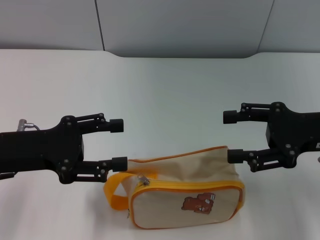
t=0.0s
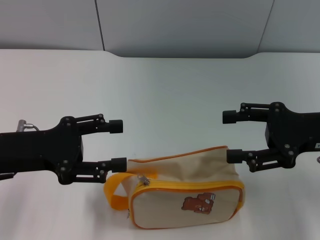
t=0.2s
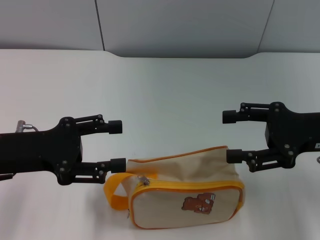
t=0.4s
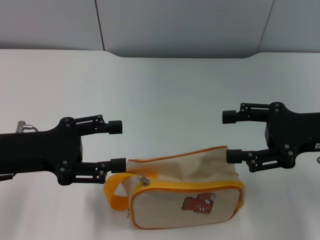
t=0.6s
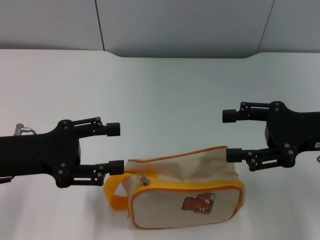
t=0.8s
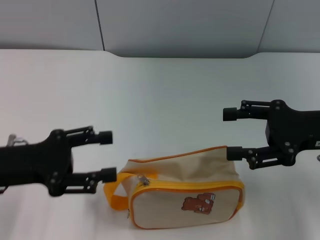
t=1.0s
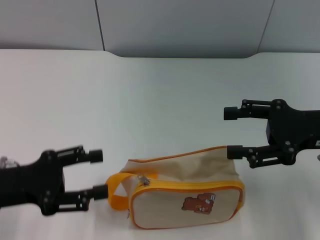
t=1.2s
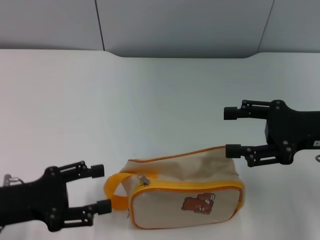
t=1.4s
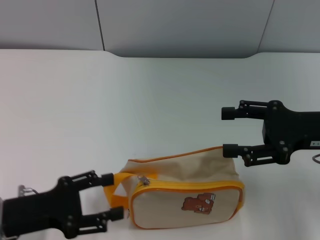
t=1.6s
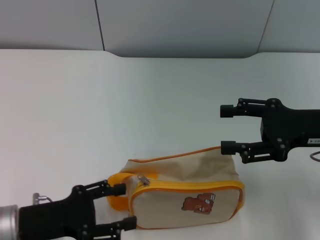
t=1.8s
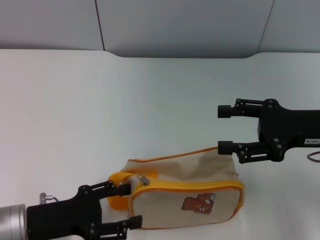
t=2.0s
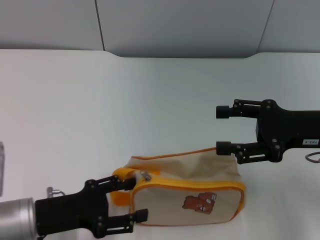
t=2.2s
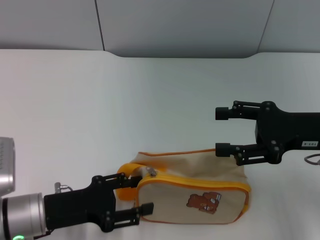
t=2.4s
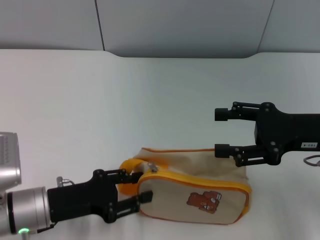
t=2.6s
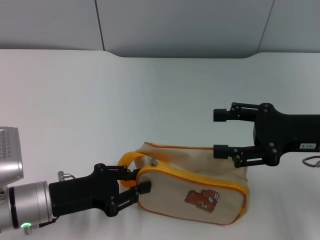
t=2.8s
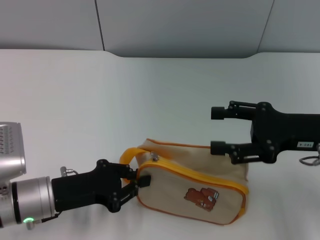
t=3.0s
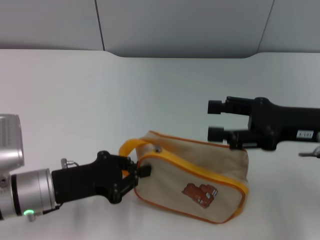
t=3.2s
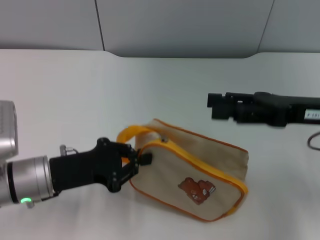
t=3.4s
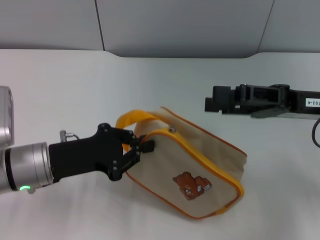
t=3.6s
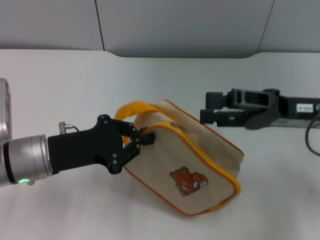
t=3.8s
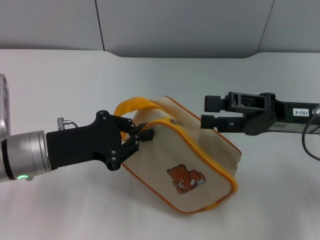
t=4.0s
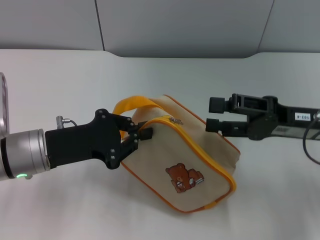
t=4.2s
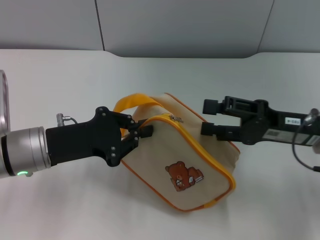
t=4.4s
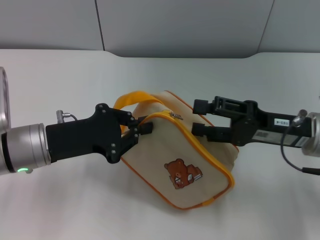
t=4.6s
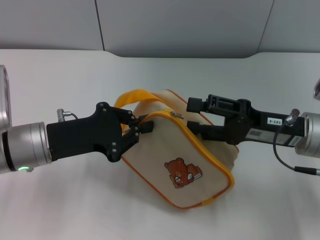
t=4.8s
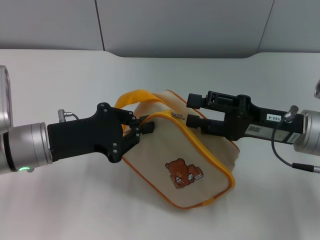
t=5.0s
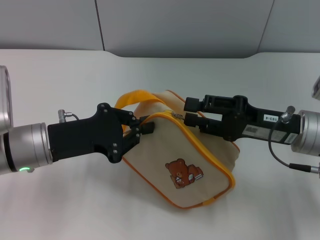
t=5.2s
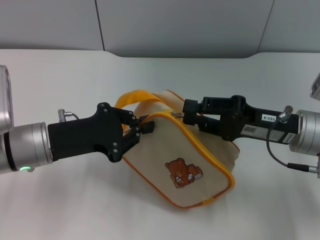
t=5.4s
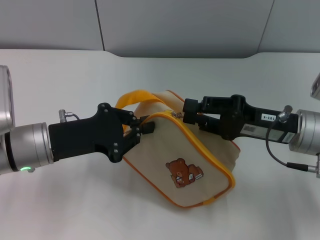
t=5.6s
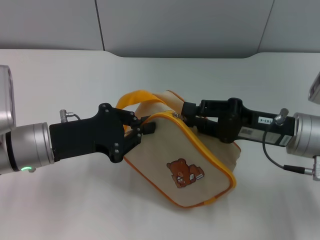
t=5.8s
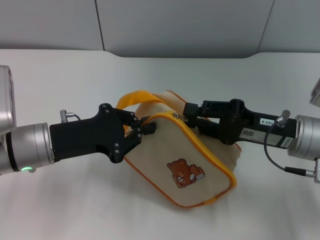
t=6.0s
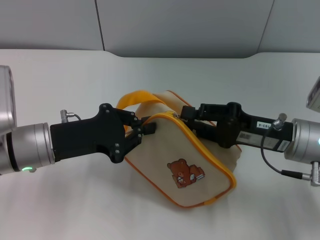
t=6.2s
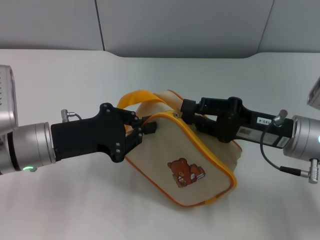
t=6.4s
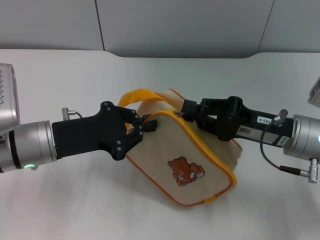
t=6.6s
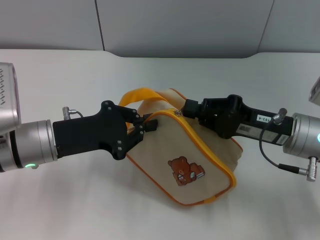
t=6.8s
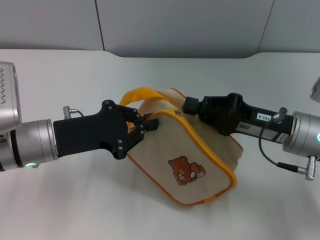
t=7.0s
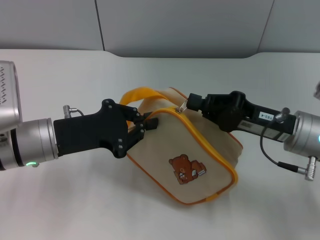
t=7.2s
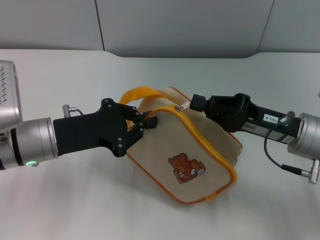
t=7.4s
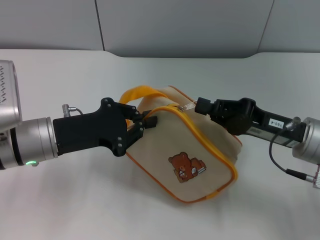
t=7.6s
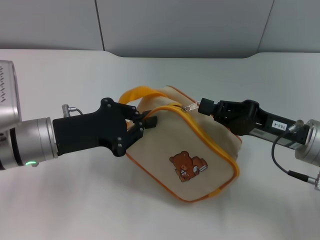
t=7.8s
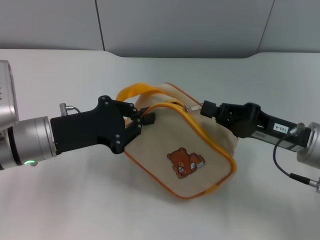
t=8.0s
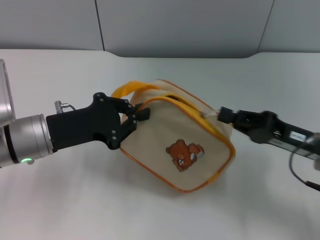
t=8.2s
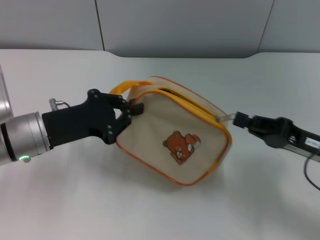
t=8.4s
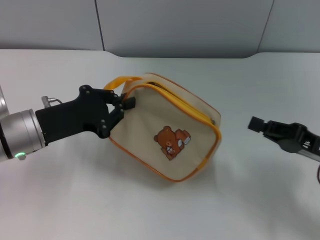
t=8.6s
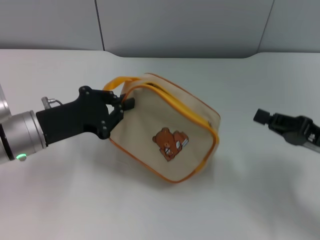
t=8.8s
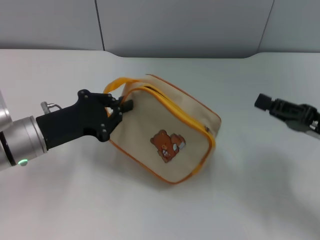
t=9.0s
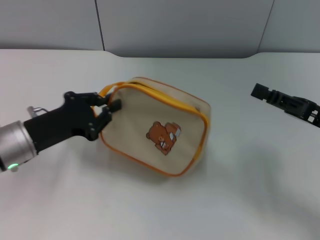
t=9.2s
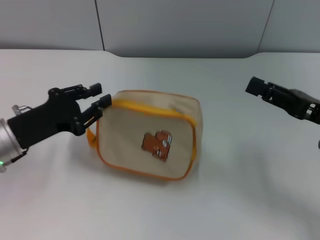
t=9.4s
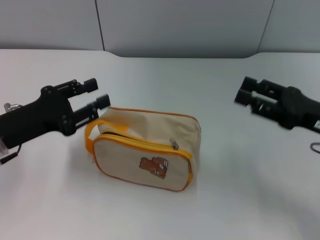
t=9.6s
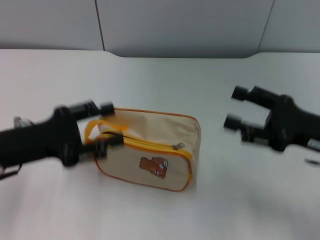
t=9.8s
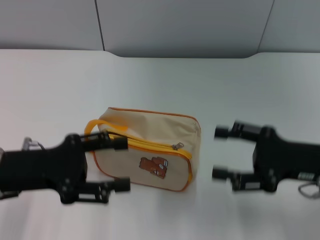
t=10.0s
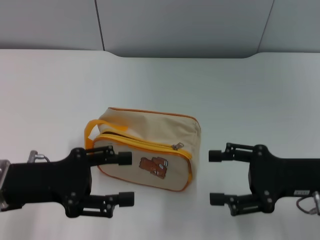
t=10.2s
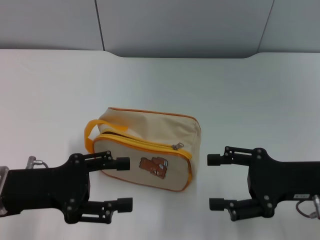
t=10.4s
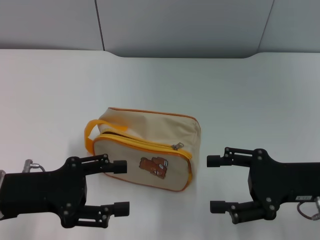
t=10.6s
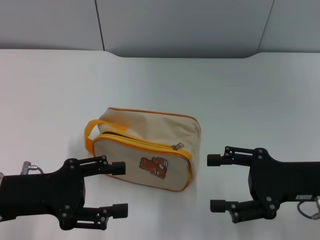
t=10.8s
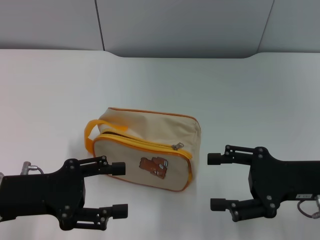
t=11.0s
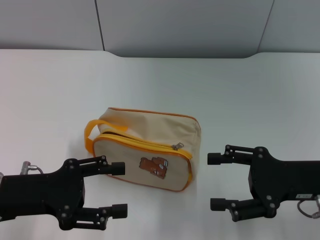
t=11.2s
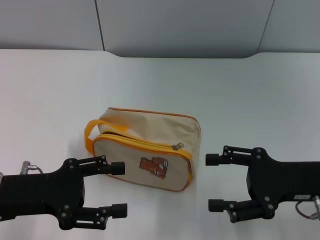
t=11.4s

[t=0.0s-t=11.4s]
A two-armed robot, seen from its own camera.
Step, t=0.0s to t=3.4s: Pick up the bag with left gripper.
Step, t=3.6s to t=8.4s: Unzip the zipper of bag with right gripper.
Step, t=8.6s to t=9.4s: Place the bag on the table with left gripper.
t=0.0s to t=1.4s: The left gripper is displaced backward and downward by about 10 cm.
t=1.4s to t=2.8s: The left gripper is displaced to the right by approximately 5 cm, and closes.
t=2.8s to t=4.2s: The left gripper goes some 5 cm upward, and closes its fingers.
t=4.2s to t=5.6s: The right gripper closes its fingers.
t=5.6s to t=7.2s: The right gripper closes its fingers.
t=7.2s to t=8.6s: The right gripper heads to the right, covering approximately 10 cm.
t=8.6s to t=10.0s: The left gripper goes some 5 cm backward, and opens its fingers. Meanwhile the right gripper opens.
t=10.0s to t=11.4s: There are only small adjustments of the grippers.

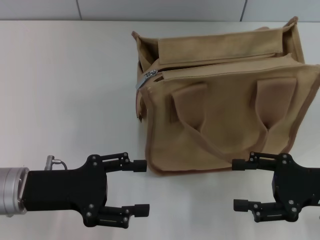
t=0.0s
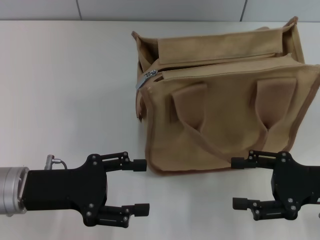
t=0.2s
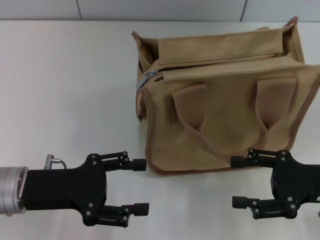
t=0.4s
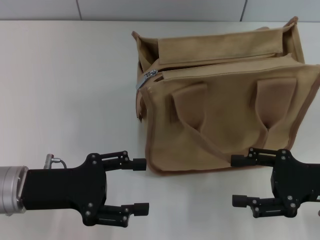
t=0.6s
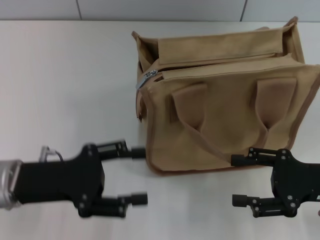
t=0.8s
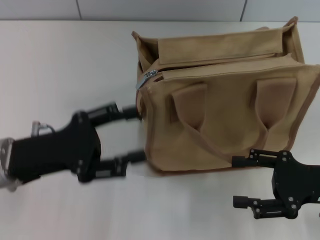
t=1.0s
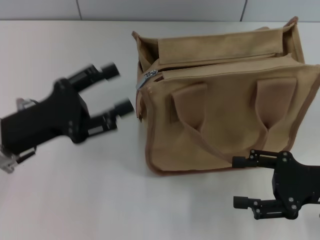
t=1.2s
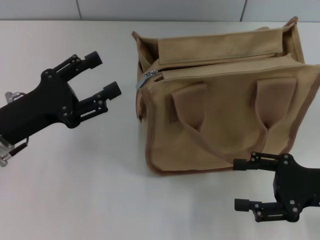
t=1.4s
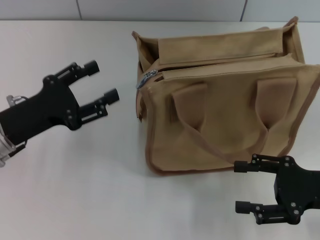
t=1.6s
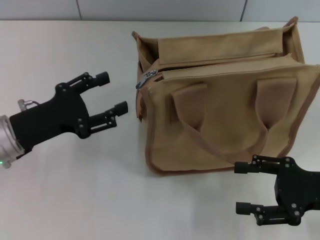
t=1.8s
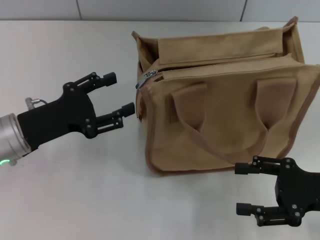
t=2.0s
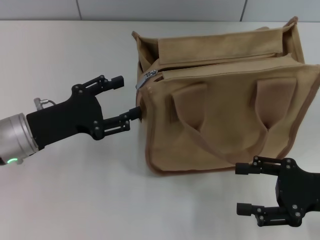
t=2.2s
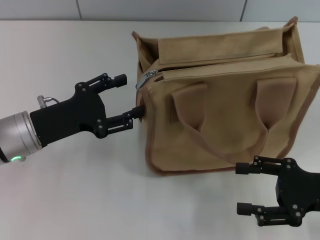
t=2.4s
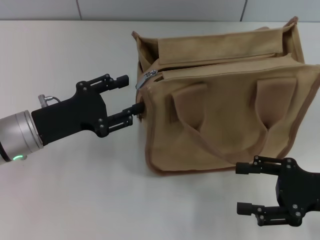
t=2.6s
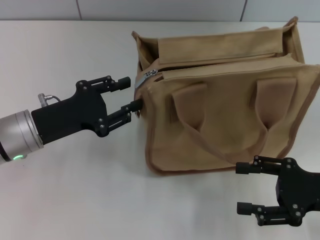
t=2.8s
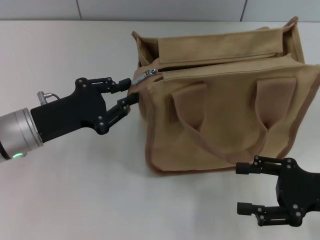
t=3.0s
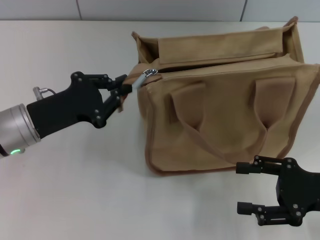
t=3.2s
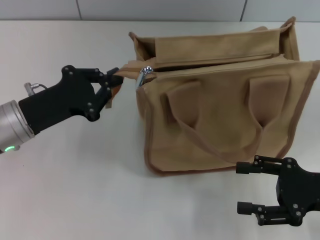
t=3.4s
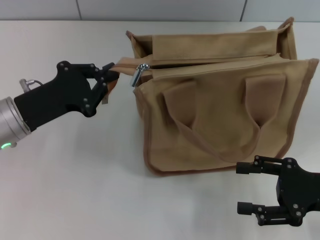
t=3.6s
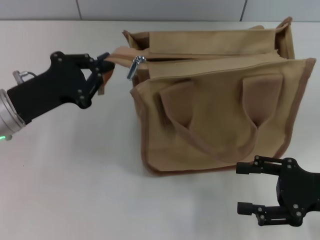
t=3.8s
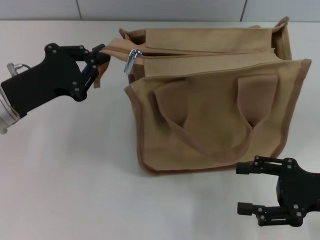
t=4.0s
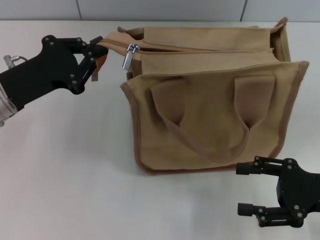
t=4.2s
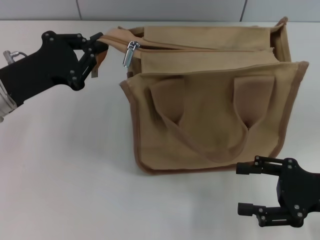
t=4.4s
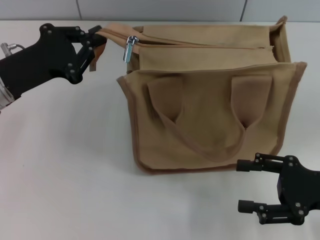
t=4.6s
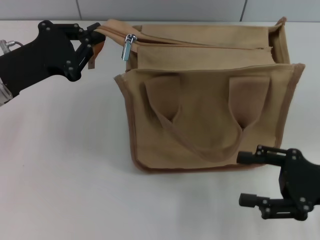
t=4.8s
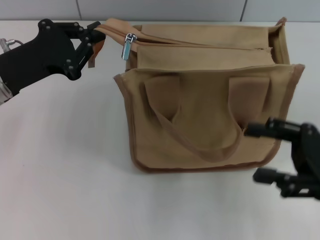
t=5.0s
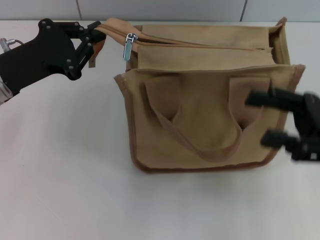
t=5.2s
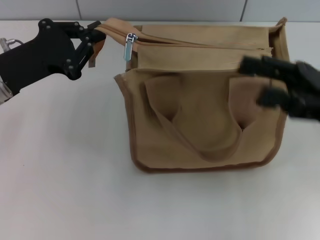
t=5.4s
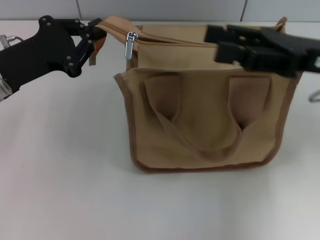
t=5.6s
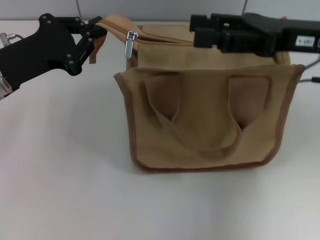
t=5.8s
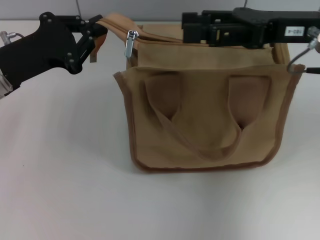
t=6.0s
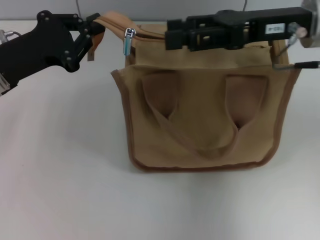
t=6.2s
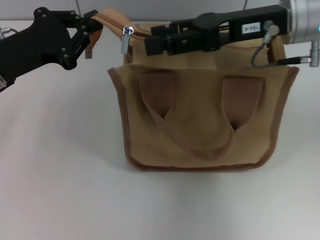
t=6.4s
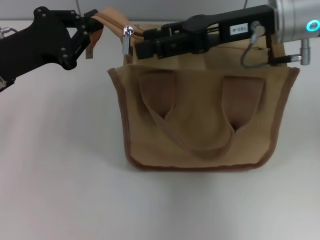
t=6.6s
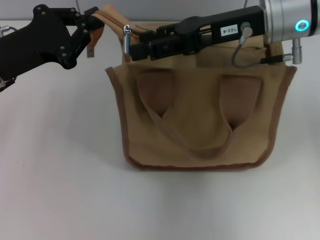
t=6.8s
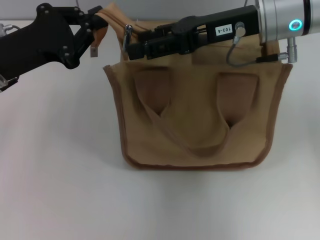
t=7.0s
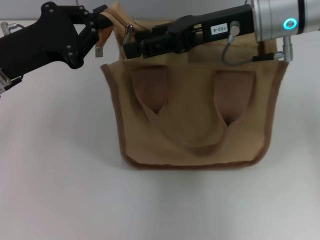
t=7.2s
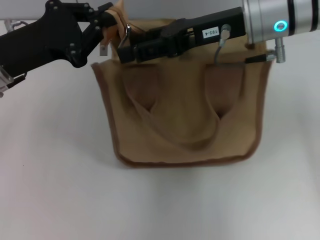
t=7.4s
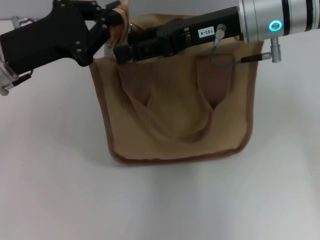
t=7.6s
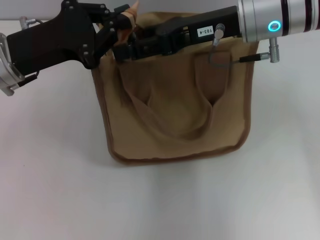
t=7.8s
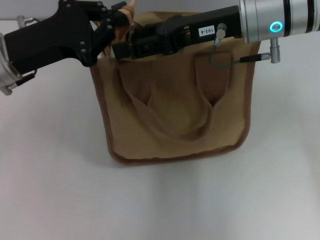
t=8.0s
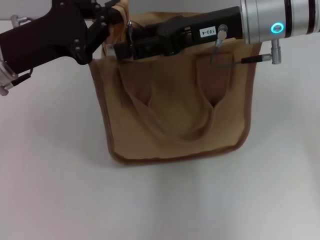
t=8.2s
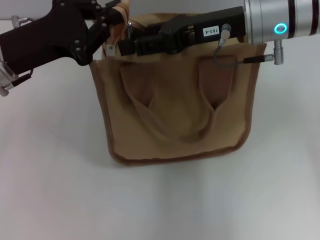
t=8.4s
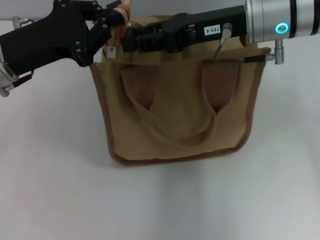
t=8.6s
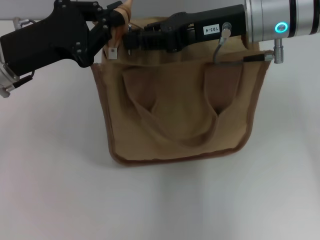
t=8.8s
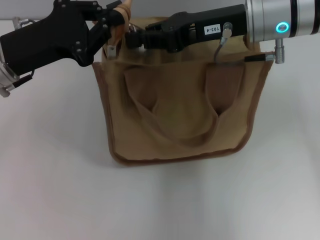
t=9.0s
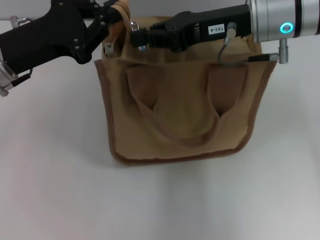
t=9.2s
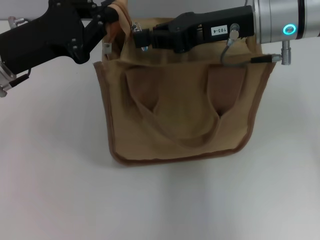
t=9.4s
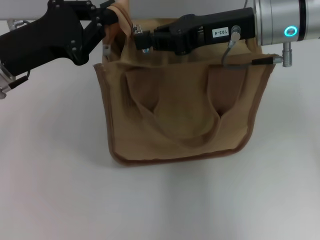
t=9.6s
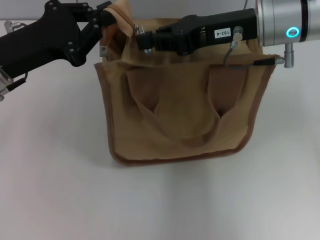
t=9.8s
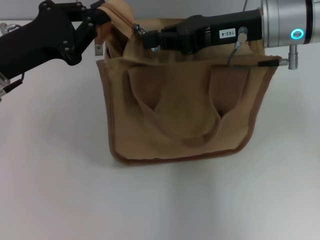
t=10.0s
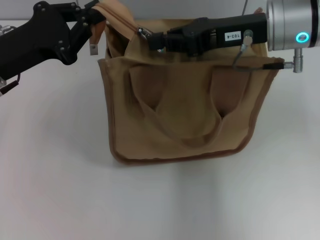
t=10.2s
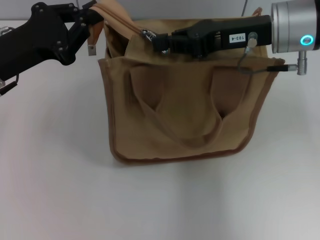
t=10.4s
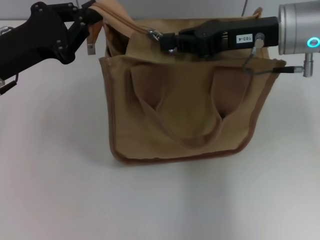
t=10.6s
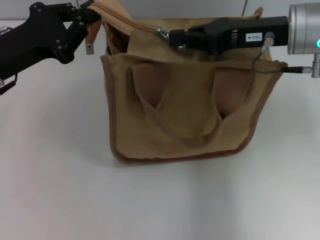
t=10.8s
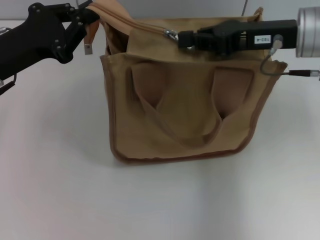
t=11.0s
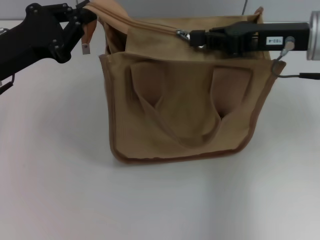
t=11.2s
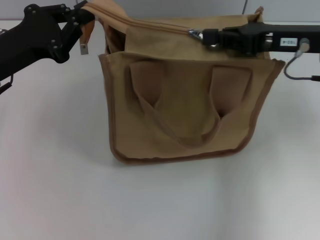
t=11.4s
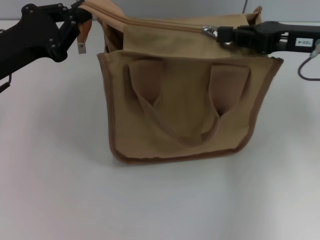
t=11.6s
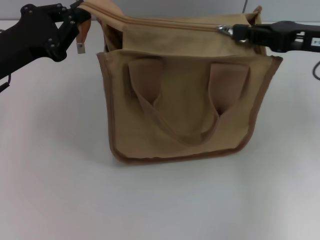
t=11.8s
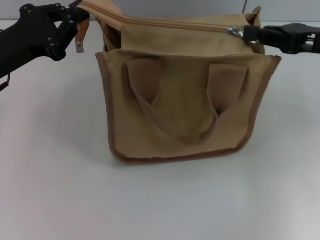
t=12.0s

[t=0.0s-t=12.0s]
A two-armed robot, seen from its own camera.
t=1.6s to t=3.0s: The left gripper closes its fingers.
t=3.0s to t=4.4s: The left gripper ends up some 5 cm from where it was, and closes its fingers.
t=4.4s to t=6.0s: The right gripper shifts some 20 cm upward, forward and to the left.
t=6.0s to t=7.6s: The right gripper travels to the left by about 10 cm.
t=7.6s to t=9.0s: The right gripper closes its fingers.
t=9.0s to t=10.4s: The grippers move only a little.
t=10.4s to t=12.0s: The right gripper is displaced to the right by approximately 10 cm.
